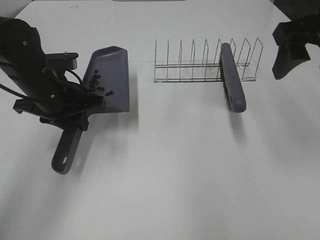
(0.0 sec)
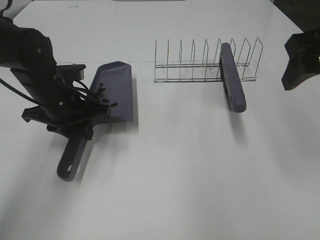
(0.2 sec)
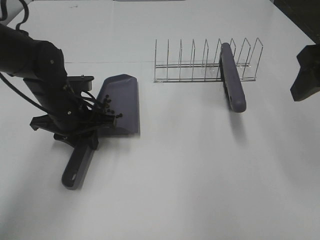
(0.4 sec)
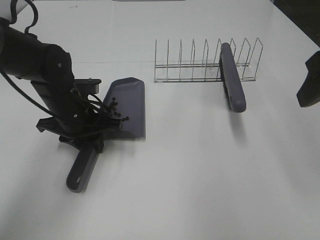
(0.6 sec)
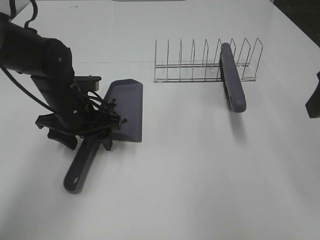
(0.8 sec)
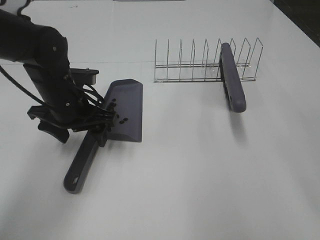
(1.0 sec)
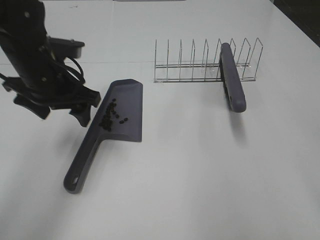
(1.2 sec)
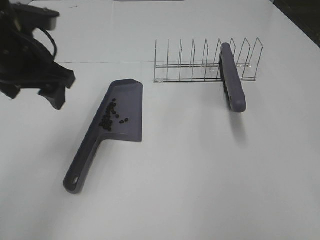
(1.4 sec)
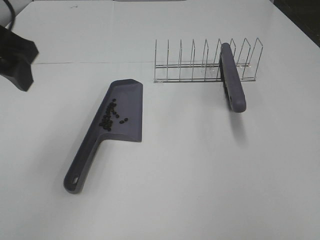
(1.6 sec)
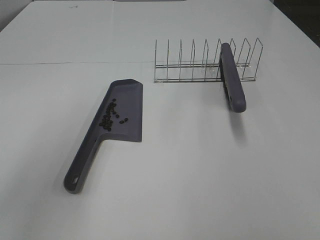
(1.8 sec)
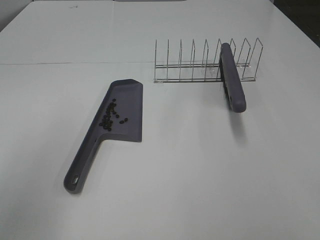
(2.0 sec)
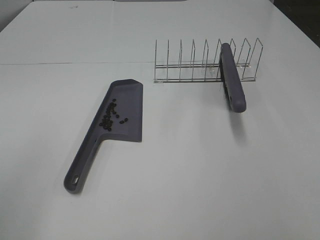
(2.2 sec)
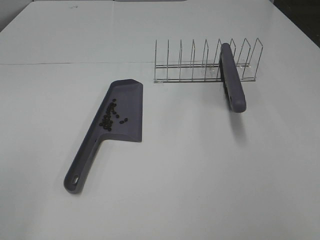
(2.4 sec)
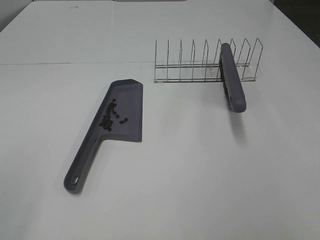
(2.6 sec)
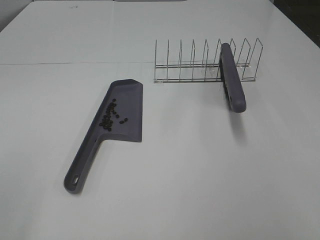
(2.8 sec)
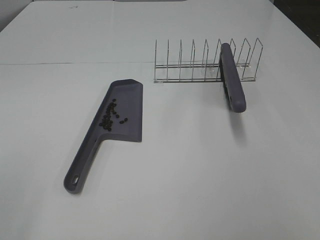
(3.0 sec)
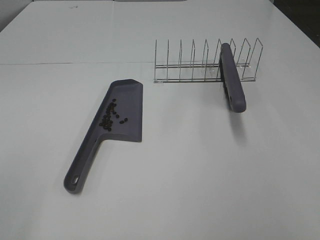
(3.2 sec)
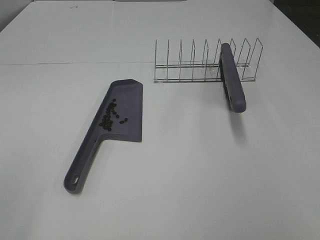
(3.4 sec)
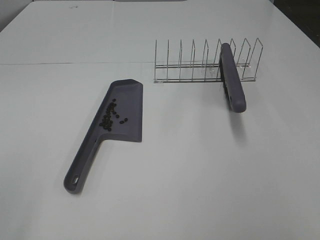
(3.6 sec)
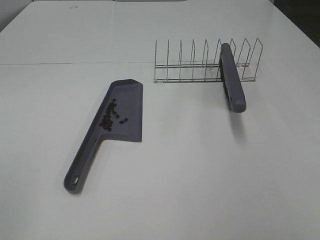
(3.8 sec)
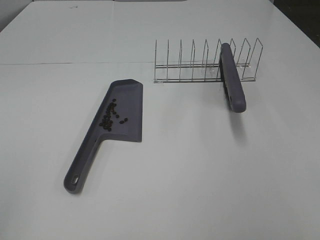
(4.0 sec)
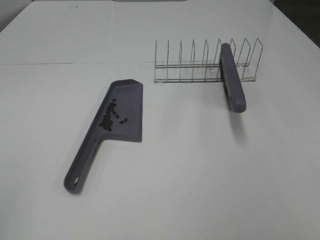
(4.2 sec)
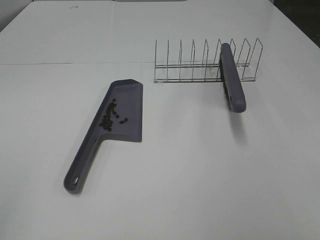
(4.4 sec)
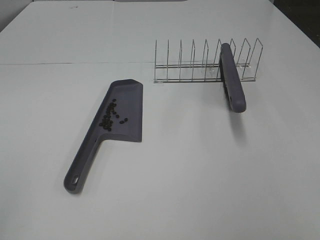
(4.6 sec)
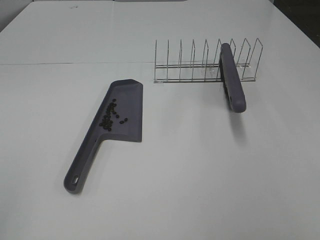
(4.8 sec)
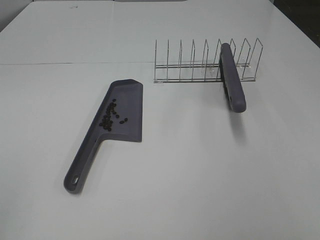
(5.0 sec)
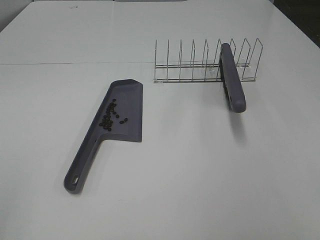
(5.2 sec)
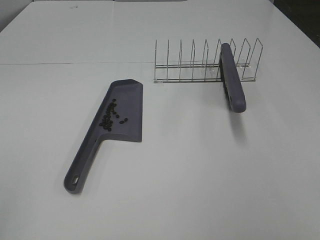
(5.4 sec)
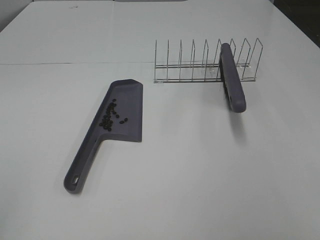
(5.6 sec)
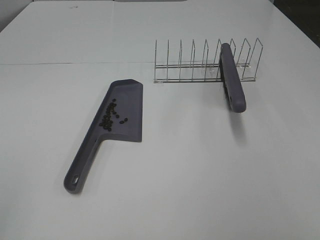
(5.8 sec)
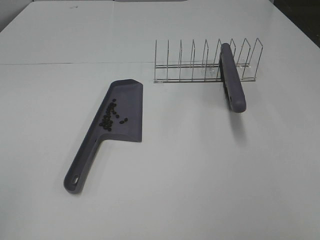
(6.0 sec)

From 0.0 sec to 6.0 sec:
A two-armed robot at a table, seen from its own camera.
Task of the whole recording: Sweep Coffee Bean.
From 0.0 sec to 1.6 sec: The left gripper heads upward and backward, covering approximately 20 cm, and opens up, while the right gripper shifts approximately 20 cm backward.
From 1.6 sec to 3.0 sec: The left gripper travels backward and to the left by roughly 25 cm.
From 4.4 sec to 6.0 sec: The two grippers keep their place.
